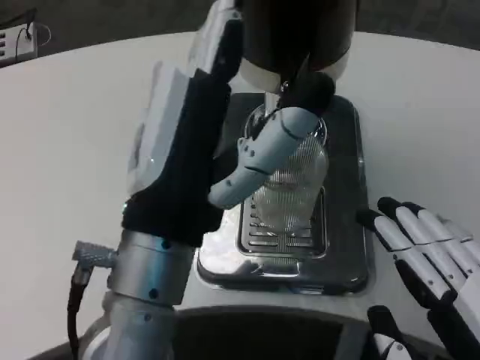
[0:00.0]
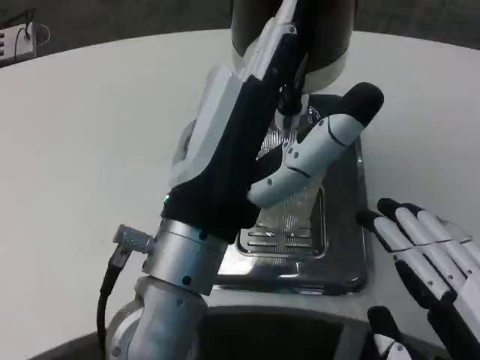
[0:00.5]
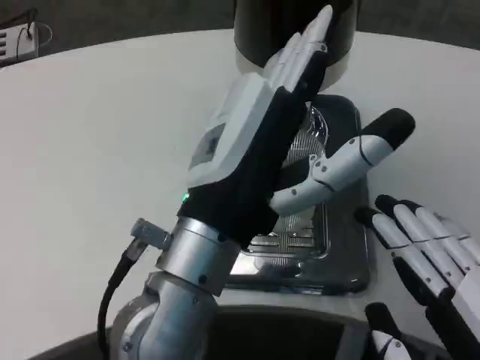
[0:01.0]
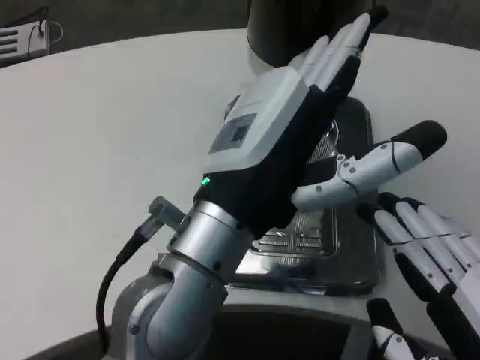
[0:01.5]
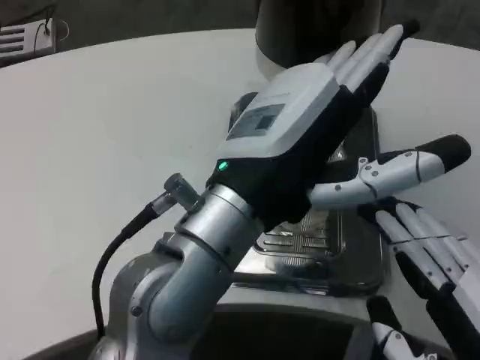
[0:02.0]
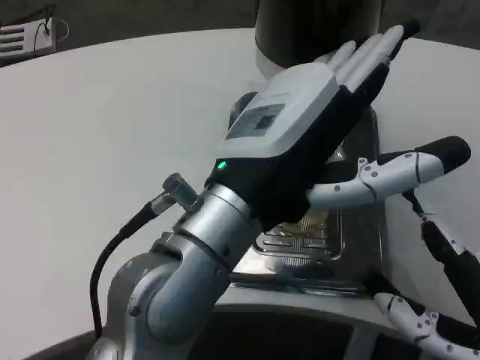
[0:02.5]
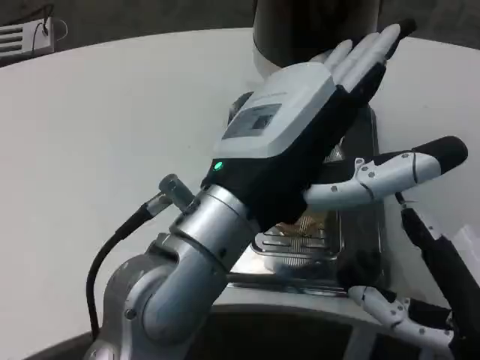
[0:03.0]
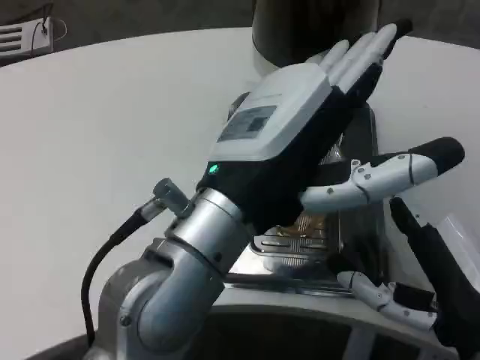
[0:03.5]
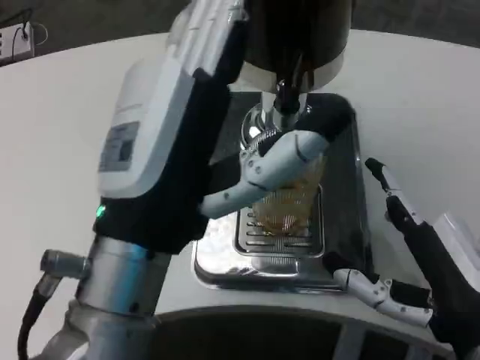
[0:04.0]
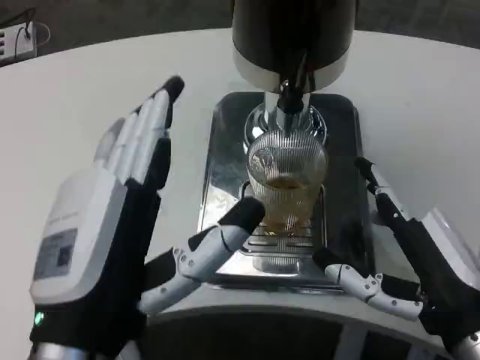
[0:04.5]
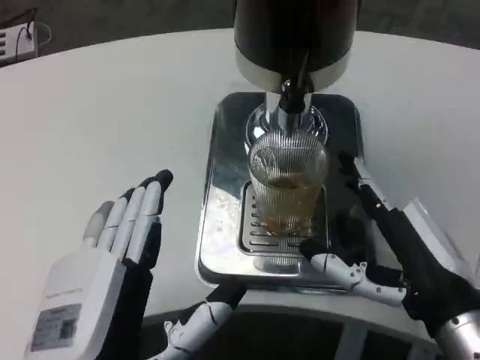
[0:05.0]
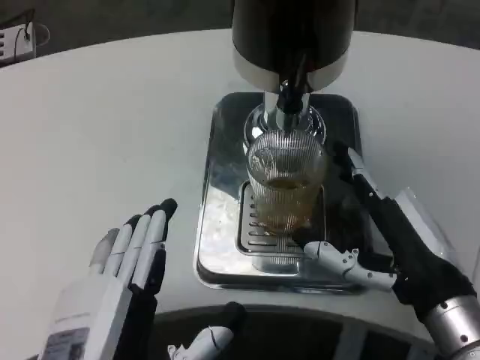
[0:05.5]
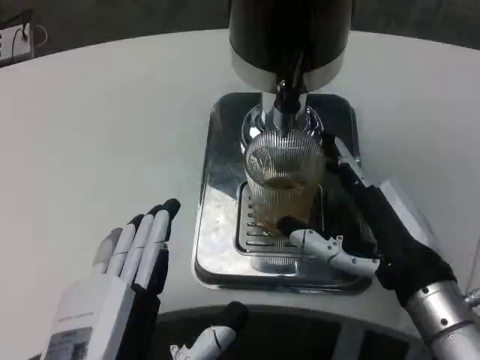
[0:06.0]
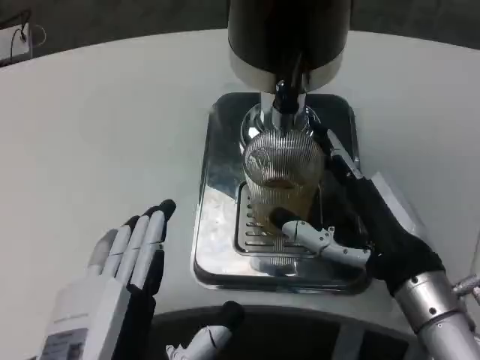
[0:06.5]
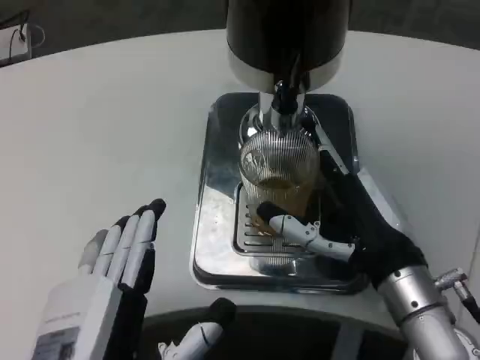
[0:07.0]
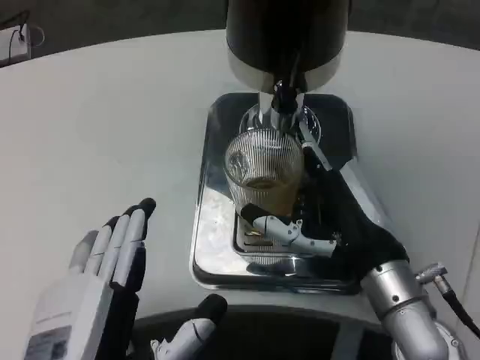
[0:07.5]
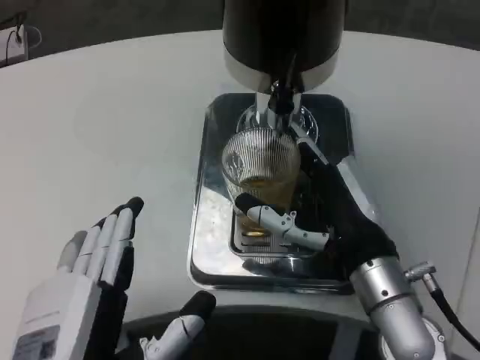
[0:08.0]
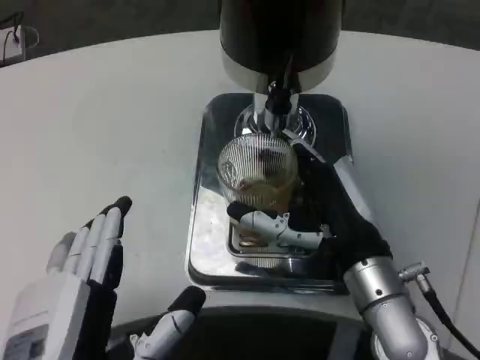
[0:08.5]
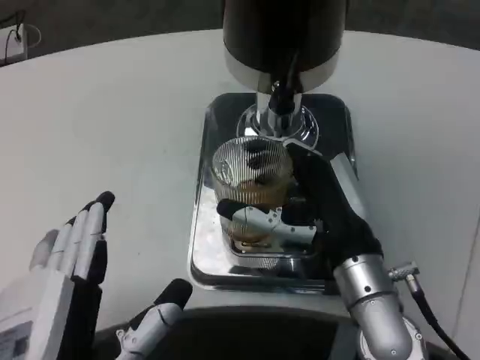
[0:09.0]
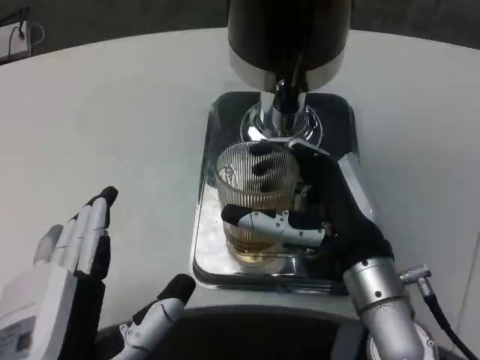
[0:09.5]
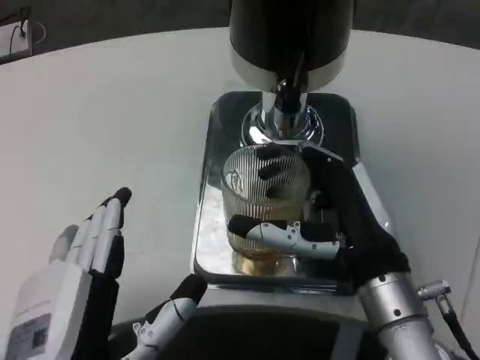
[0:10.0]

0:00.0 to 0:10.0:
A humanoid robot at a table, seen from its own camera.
Task of the whole recording: Grasp the cup under the faucet to collect the drink, then remove the cup.
0:02.0 to 0:04.0: The left hand ends up about 5 cm from where it was. Meanwhile the right hand travels forward by approximately 5 cm.
0:04.0 to 0:06.0: The left hand moves downward and backward, approximately 15 cm, while the right hand is displaced forward by approximately 5 cm.
0:06.0 to 0:08.0: The right hand changes place by approximately 5 cm.

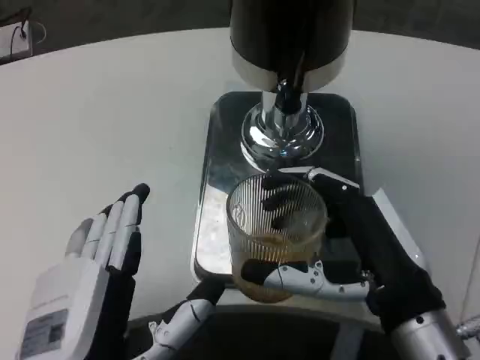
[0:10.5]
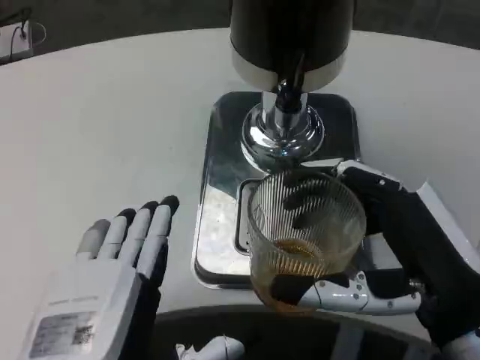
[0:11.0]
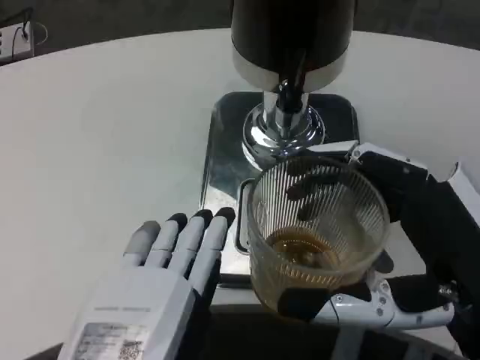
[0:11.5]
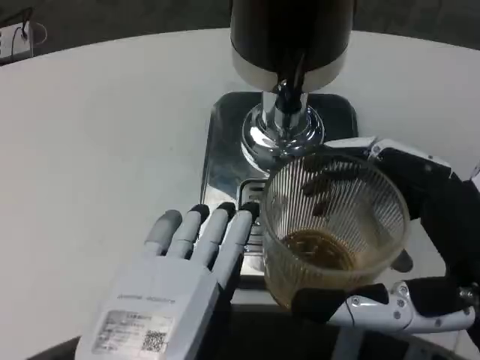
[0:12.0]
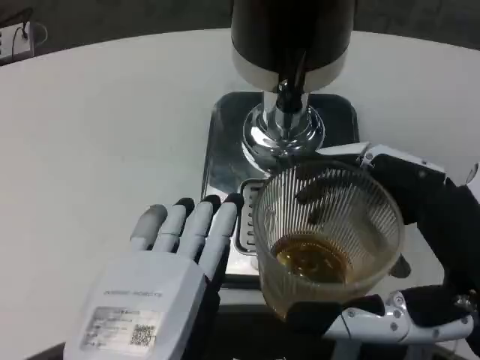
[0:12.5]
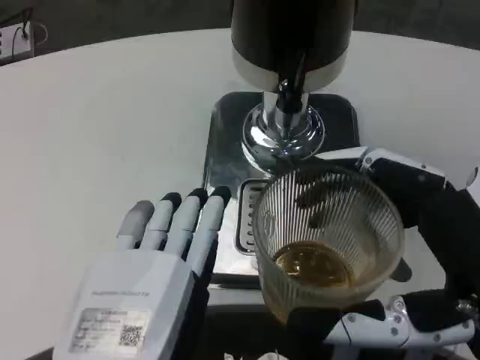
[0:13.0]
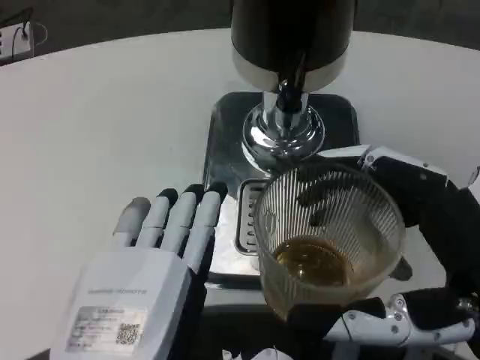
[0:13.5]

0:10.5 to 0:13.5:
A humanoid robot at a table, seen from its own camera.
Task of the whole recording: Grasp the cup under the faucet to collect the drink, then remove the cup.
0:10.5 to 0:12.0: The right hand heads backward, covering approximately 5 cm. The left hand moves roughly 5 cm.
0:12.0 to 0:13.5: The hands stay close to where they were, moving slightly.

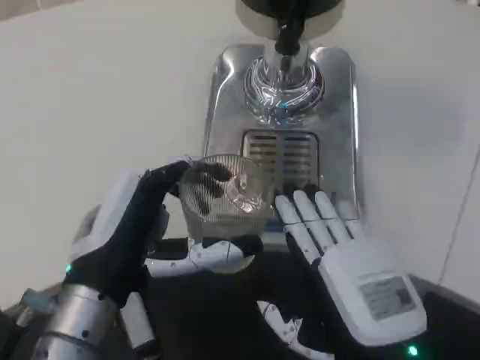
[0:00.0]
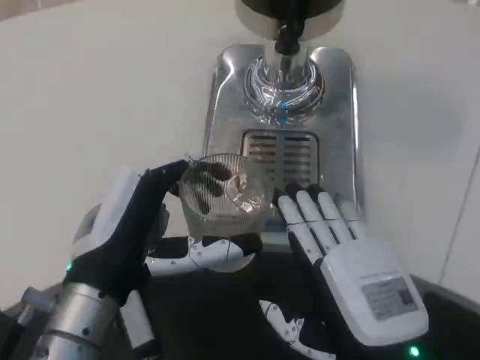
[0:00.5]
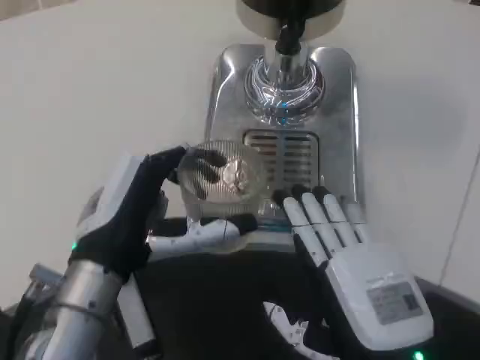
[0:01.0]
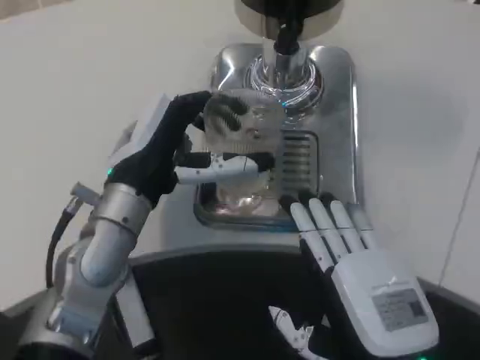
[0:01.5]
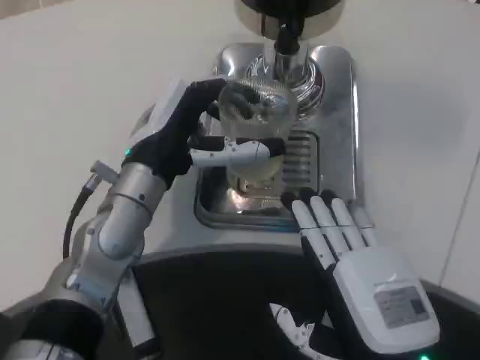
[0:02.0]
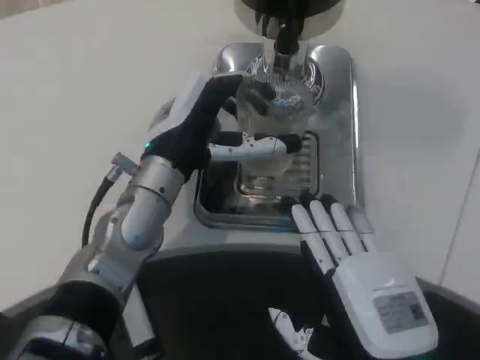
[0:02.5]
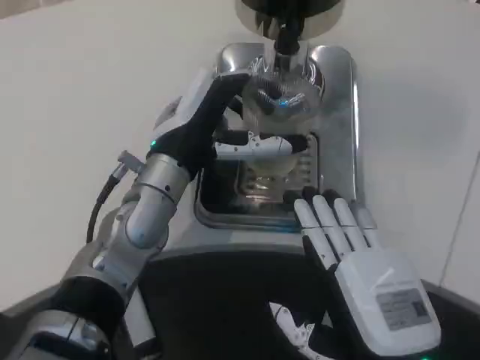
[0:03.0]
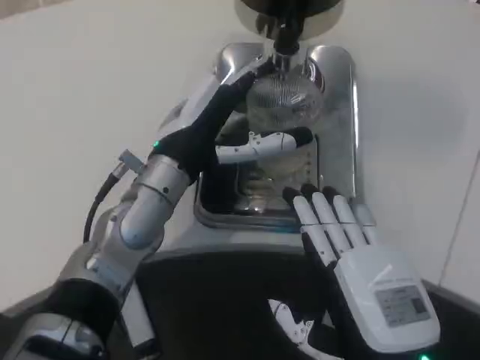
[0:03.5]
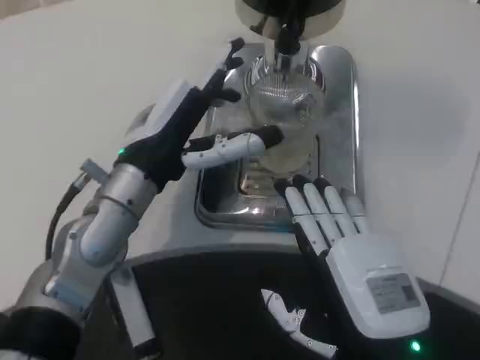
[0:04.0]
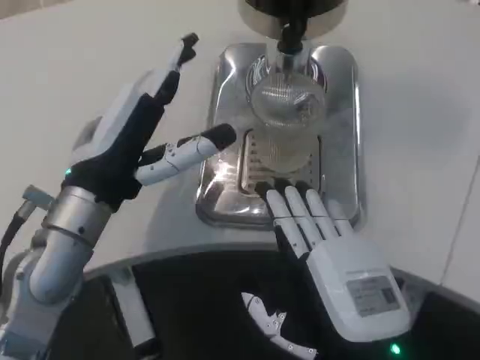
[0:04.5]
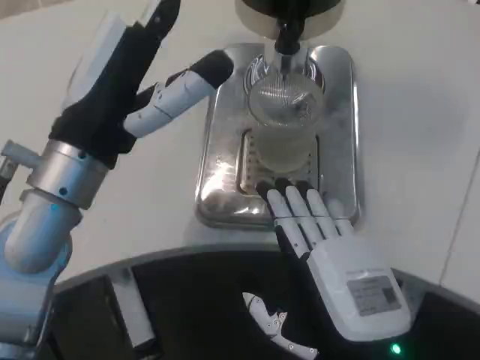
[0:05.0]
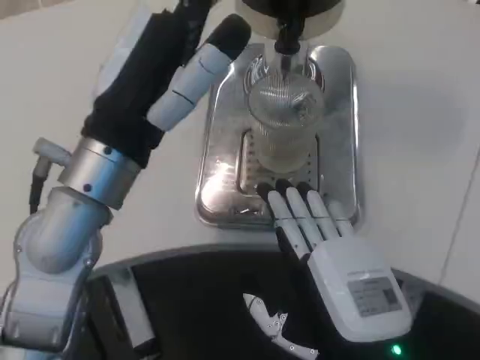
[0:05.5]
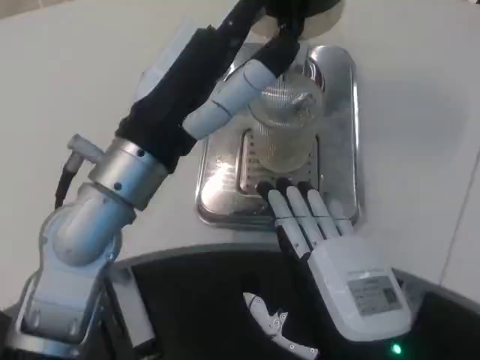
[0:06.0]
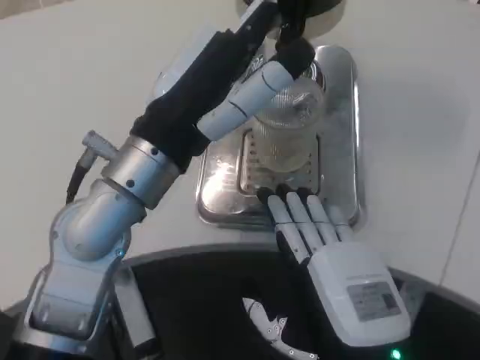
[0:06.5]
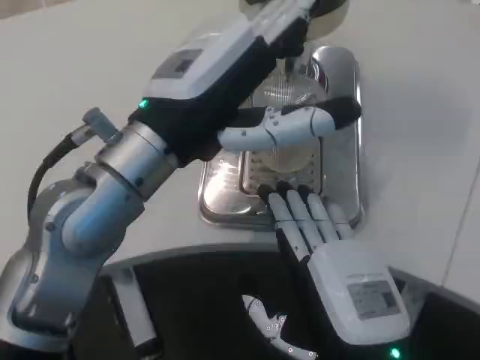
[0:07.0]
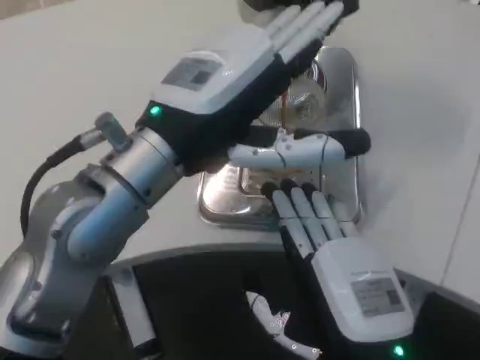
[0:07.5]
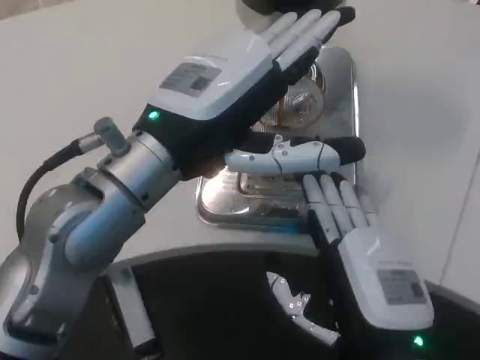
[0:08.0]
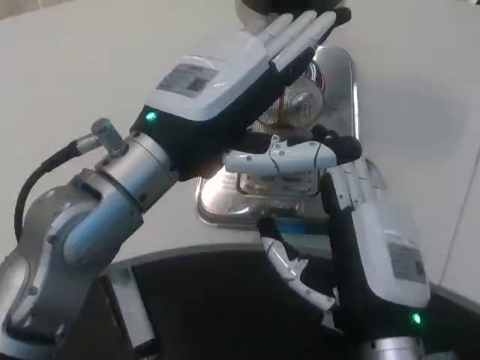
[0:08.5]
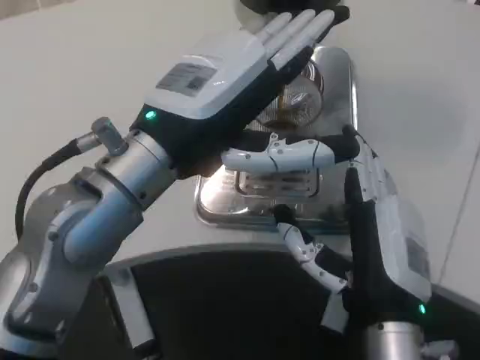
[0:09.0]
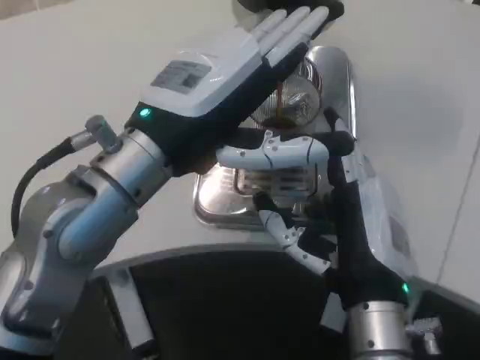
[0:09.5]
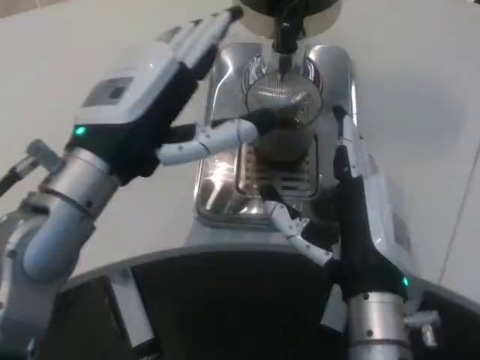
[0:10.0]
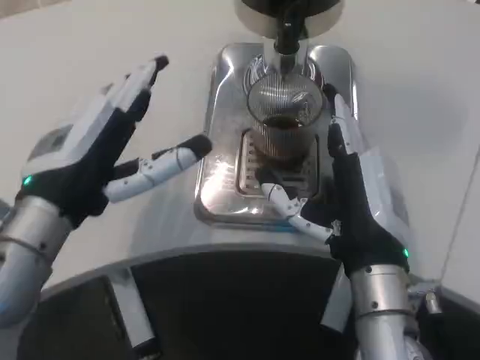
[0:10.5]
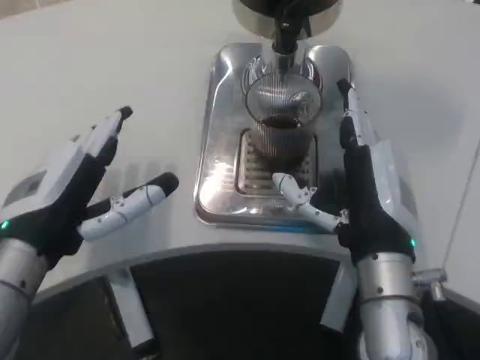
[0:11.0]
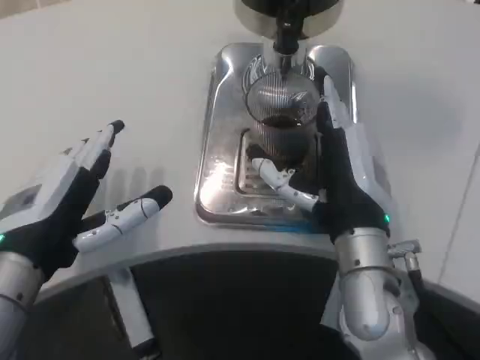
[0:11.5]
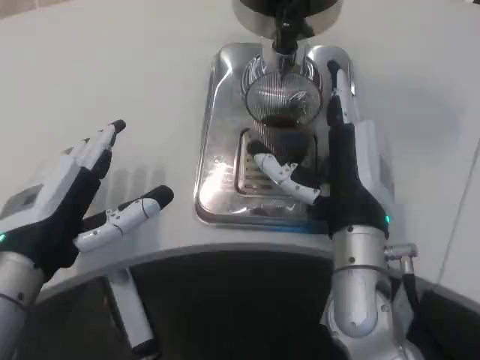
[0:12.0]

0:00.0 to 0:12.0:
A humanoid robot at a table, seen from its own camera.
Task of the whole recording: Grasp the cup under the faucet to collect the drink, then remove the cup.
0:00.0 to 0:02.0: The left hand shifts roughly 15 cm forward.
0:02.0 to 0:04.0: The hands stay close to where they were, moving slightly.
0:04.0 to 0:06.0: The left hand heads upward, covering approximately 5 cm.
0:08.0 to 0:10.0: The right hand moves forward, about 5 cm.
0:10.0 to 0:12.0: The left hand is displaced downward and to the left by about 10 cm; the right hand goes some 5 cm forward.
